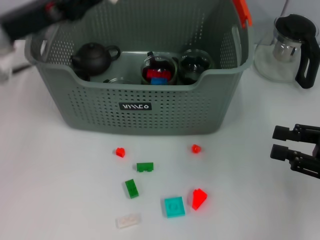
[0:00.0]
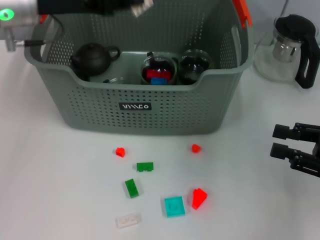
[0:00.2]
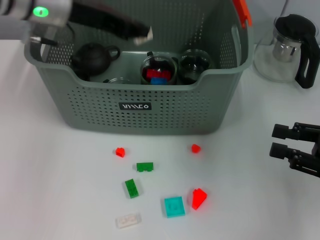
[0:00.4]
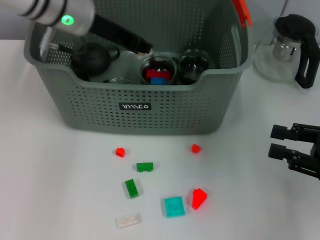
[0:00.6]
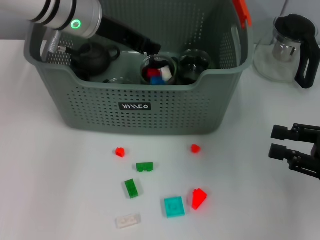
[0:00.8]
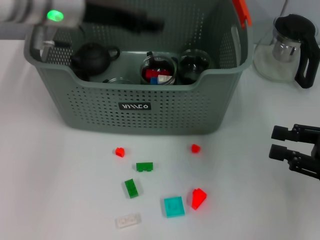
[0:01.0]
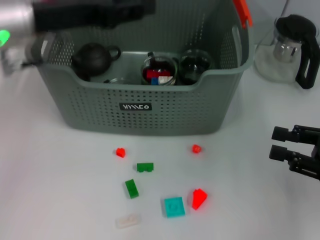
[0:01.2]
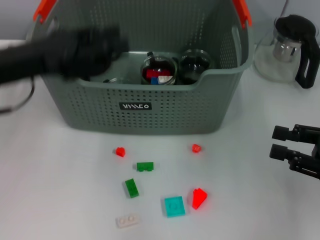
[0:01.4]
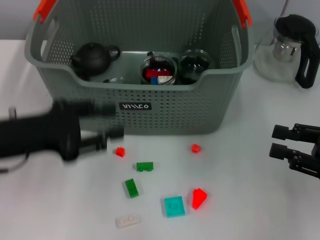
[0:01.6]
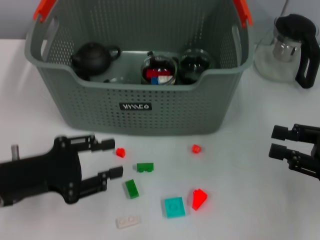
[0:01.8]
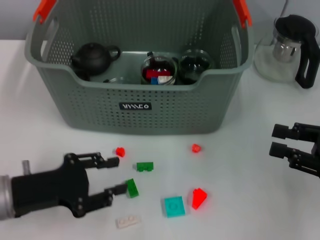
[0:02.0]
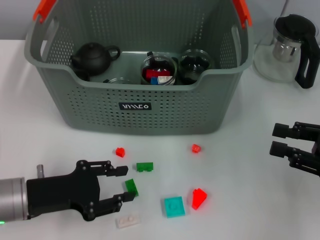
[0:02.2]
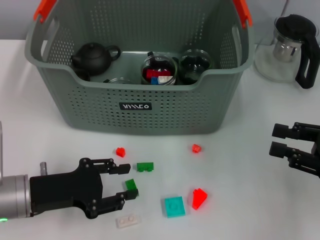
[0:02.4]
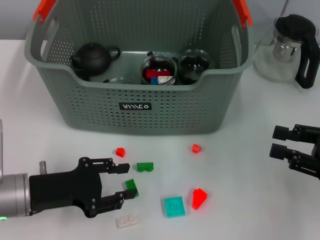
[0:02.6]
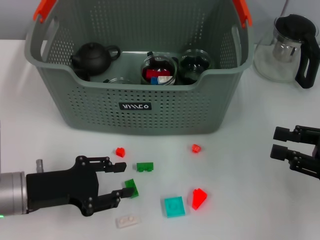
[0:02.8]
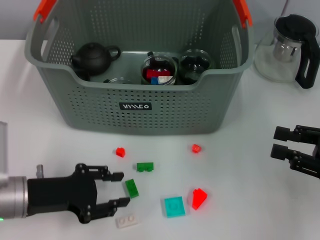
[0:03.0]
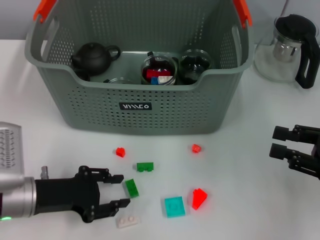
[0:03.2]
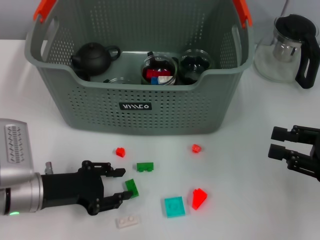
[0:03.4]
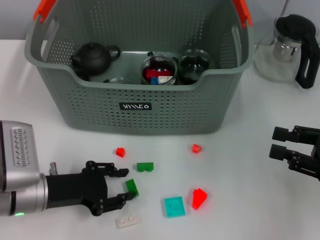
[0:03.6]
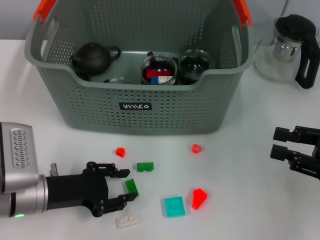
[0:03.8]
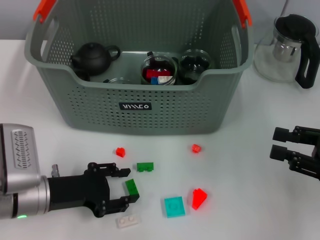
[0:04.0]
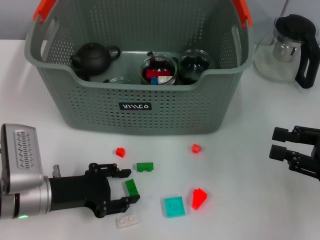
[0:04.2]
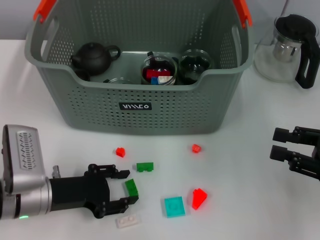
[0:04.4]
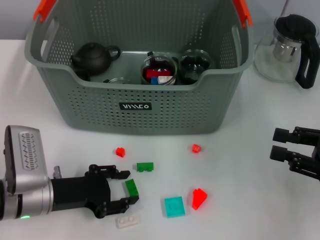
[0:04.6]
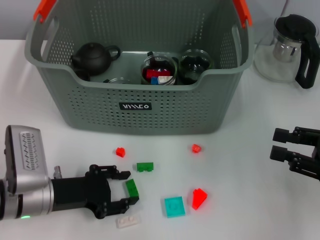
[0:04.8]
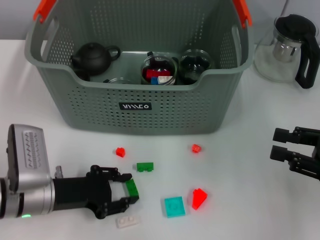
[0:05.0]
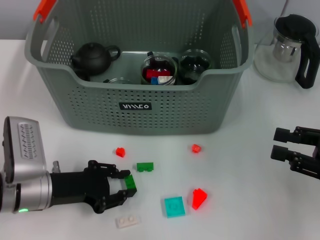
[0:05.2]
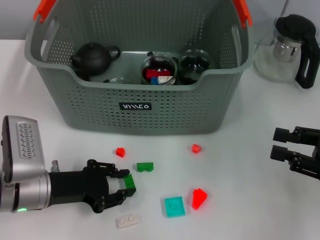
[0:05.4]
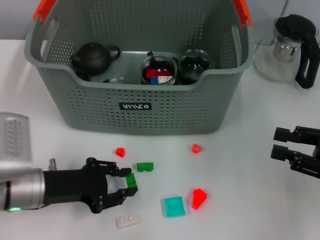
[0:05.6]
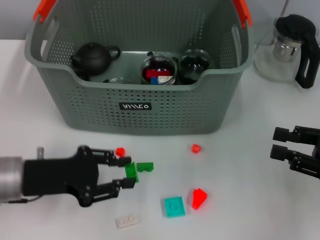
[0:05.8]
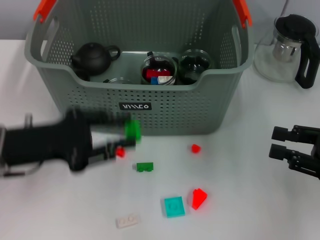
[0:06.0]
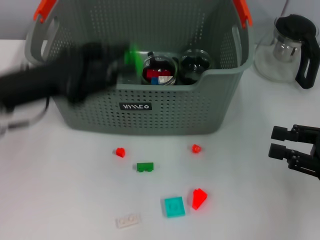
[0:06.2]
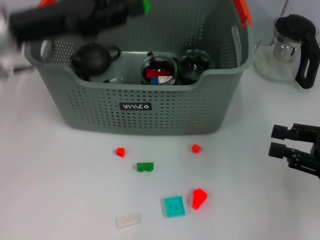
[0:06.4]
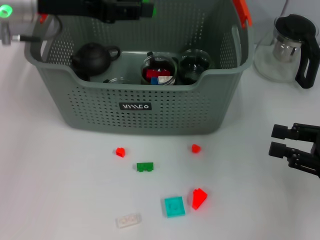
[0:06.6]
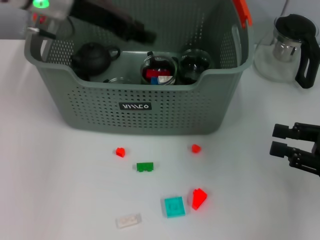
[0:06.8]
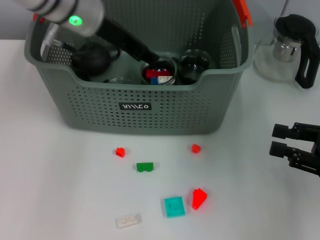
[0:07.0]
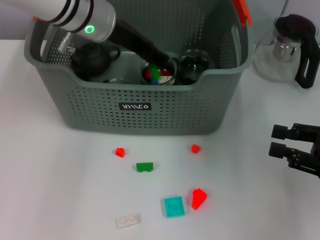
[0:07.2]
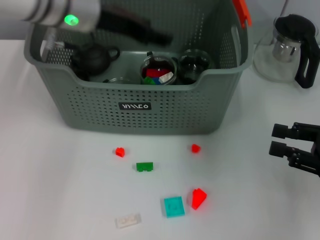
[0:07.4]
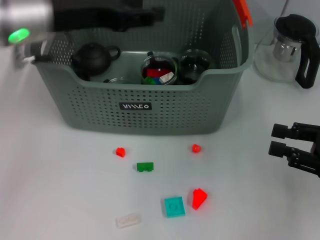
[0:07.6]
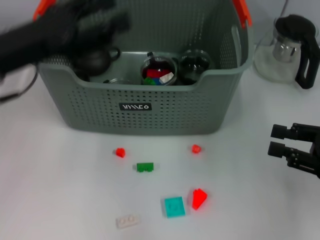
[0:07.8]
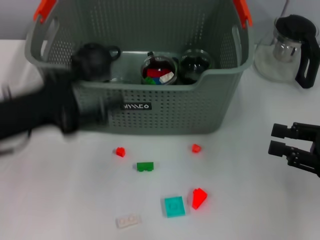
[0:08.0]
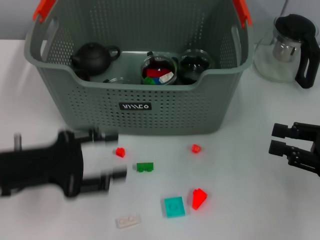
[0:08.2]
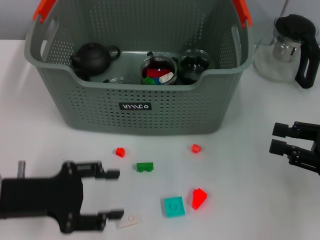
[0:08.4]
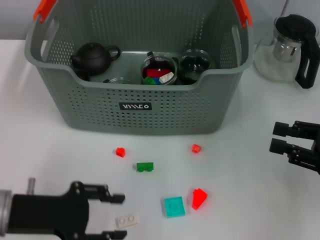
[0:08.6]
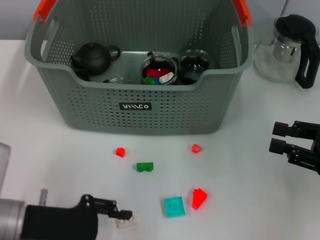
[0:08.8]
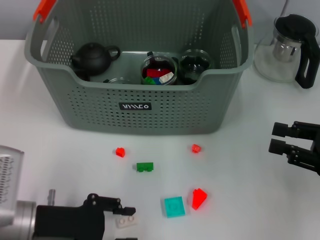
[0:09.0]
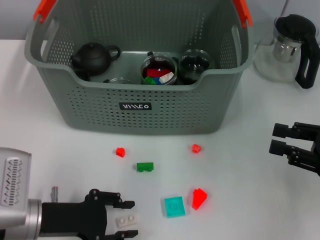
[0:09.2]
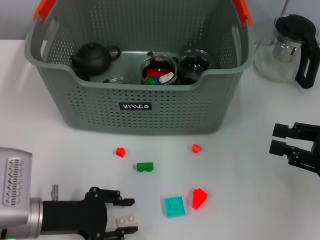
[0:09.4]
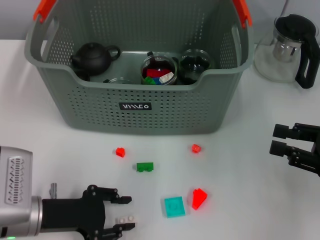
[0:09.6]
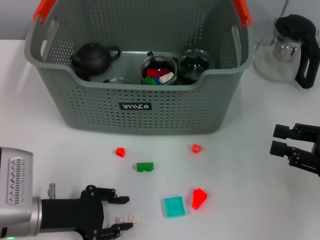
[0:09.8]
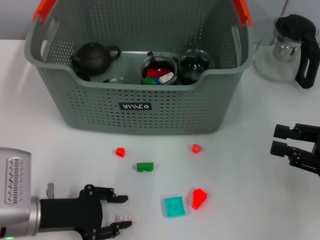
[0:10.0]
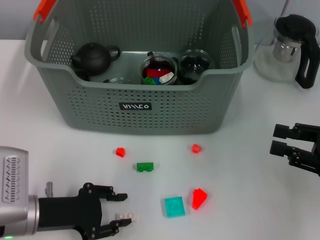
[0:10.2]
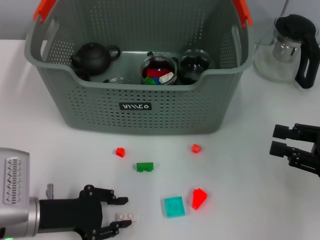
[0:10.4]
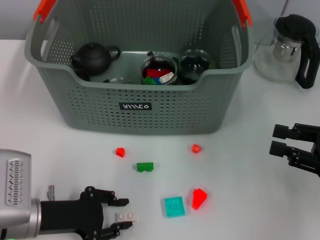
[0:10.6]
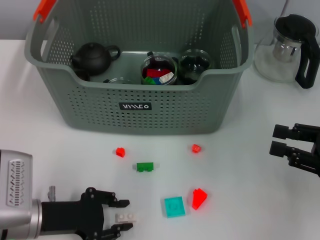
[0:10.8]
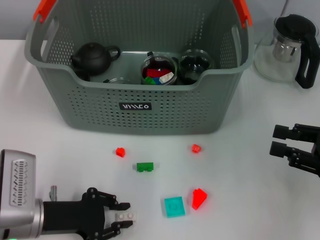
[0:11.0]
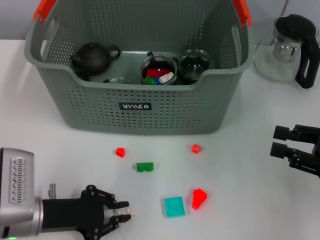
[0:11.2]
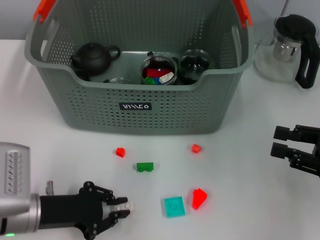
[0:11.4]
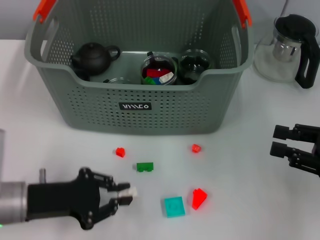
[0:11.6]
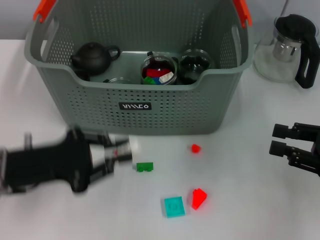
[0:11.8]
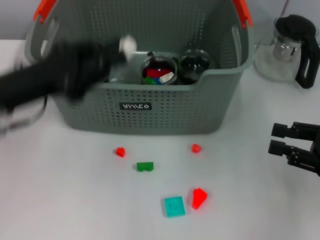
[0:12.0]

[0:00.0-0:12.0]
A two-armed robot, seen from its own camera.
Task of the whole recording: pick up the teacup on the table and place it into the storage bin, pick up the block on the table and place it into the storage bin.
Step, 0:01.0 to 0:05.0: Grasp the green block with left gripper.
Step, 0:05.4 to 0:07.2: Place the green block in the storage box with left gripper.
Step, 0:07.4 to 0:11.0: Grasp the white block with left gripper.
0:00.0 to 0:01.6: The left gripper shifts some 10 cm backward, and opens.
0:01.6 to 0:03.0: The left gripper shifts approximately 10 cm downward.
0:03.0 to 0:04.4: The grippers make only small movements.
0:04.4 to 0:06.0: The left gripper shifts roughly 10 cm upward.
0:06.0 to 0:07.6: The left gripper moves upward and forward, about 15 cm.
0:07.6 to 0:09.0: The left gripper is displaced downward and backward by some 25 cm.
0:09.0 to 0:10.4: The grippers stay close to where they were, moving slightly.
0:10.4 to 0:12.0: The left gripper travels upward and forward by some 15 cm.

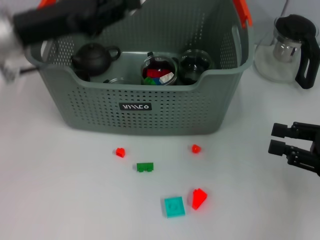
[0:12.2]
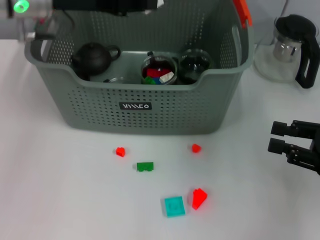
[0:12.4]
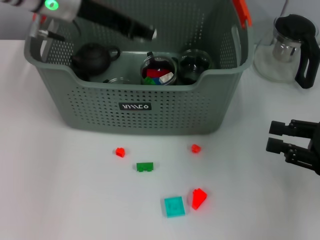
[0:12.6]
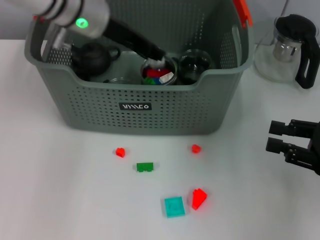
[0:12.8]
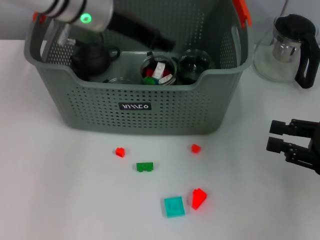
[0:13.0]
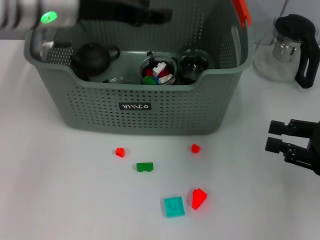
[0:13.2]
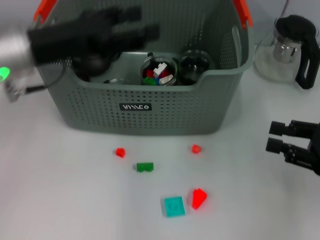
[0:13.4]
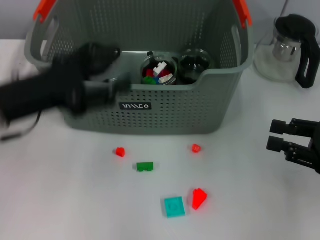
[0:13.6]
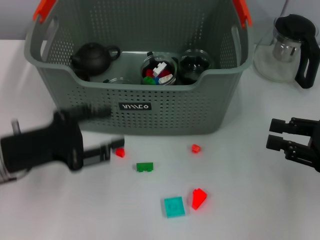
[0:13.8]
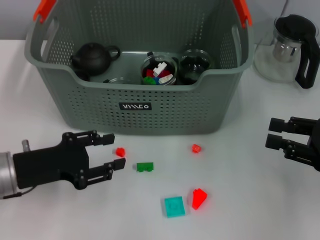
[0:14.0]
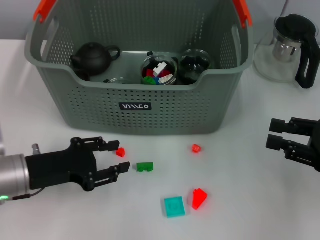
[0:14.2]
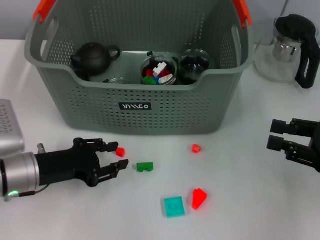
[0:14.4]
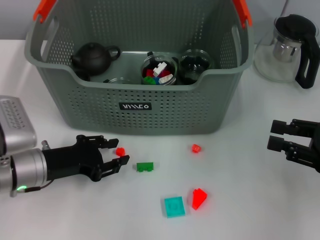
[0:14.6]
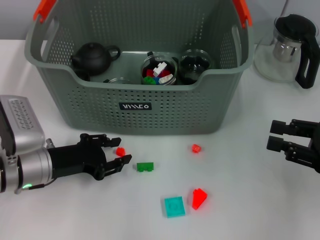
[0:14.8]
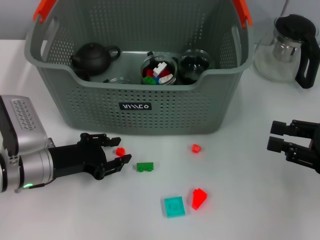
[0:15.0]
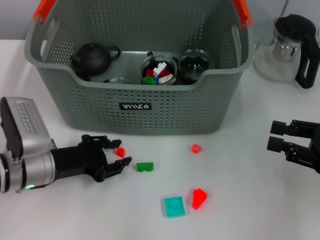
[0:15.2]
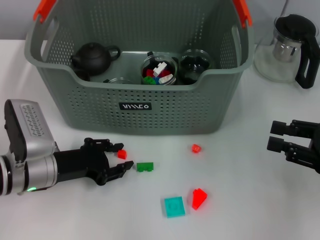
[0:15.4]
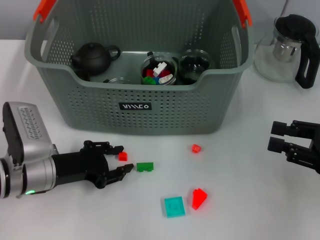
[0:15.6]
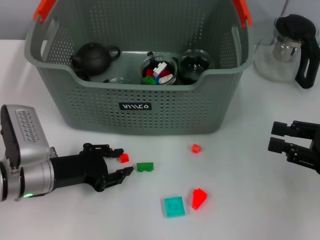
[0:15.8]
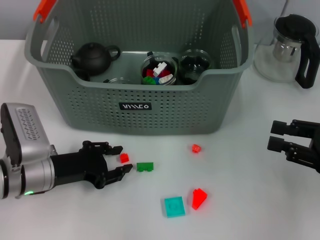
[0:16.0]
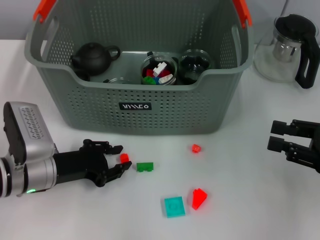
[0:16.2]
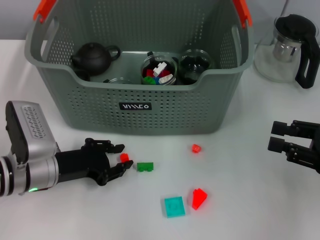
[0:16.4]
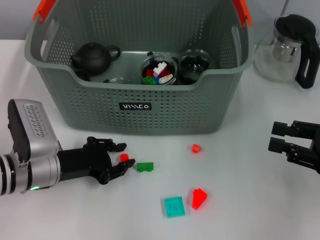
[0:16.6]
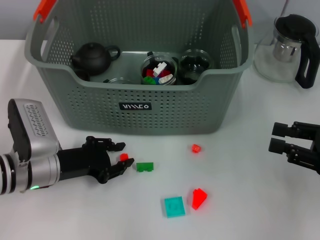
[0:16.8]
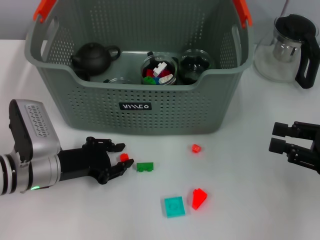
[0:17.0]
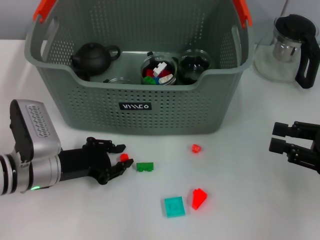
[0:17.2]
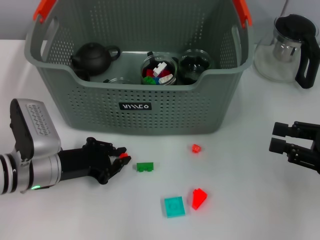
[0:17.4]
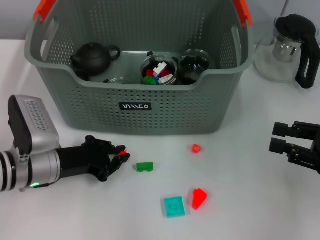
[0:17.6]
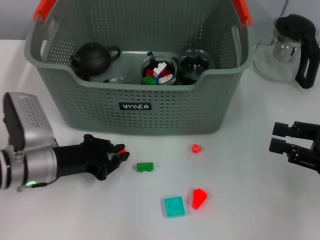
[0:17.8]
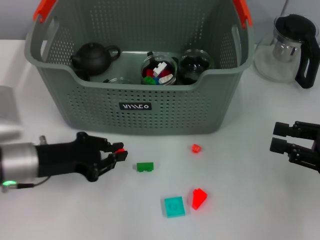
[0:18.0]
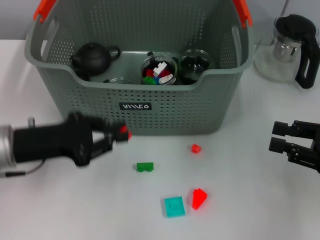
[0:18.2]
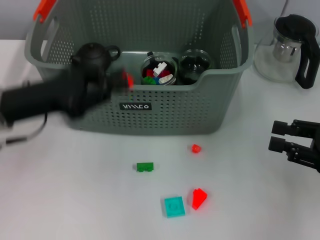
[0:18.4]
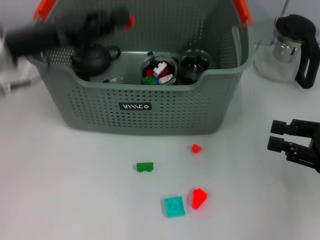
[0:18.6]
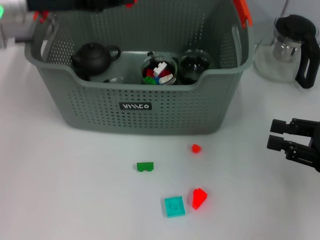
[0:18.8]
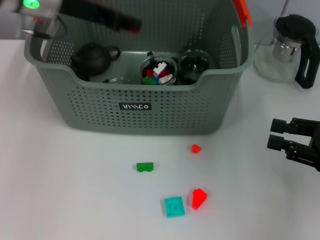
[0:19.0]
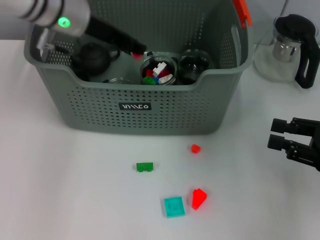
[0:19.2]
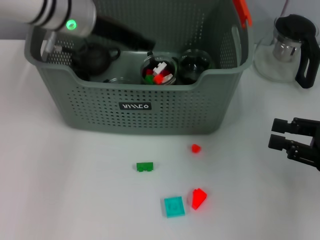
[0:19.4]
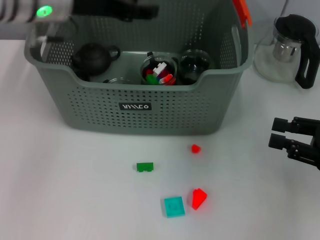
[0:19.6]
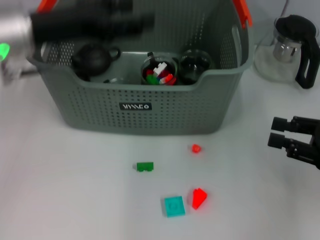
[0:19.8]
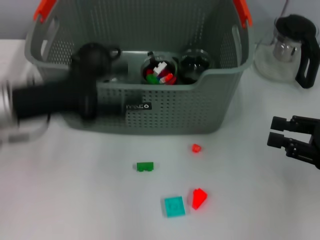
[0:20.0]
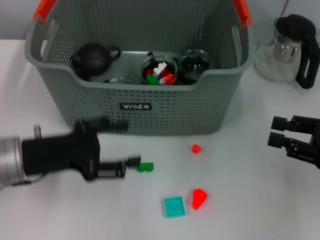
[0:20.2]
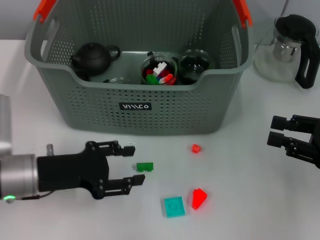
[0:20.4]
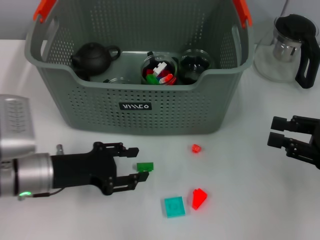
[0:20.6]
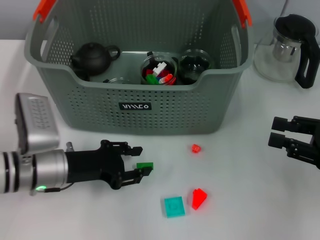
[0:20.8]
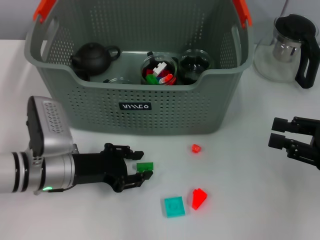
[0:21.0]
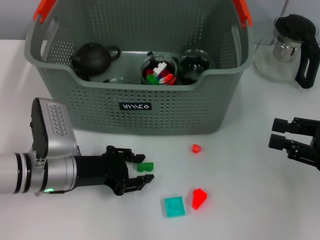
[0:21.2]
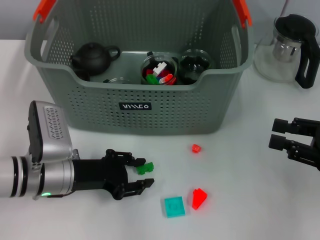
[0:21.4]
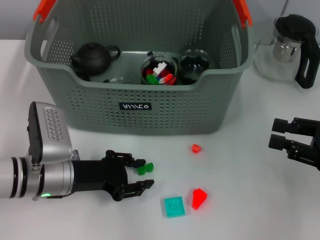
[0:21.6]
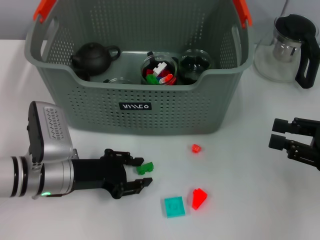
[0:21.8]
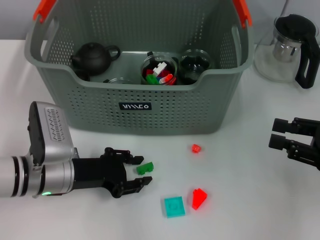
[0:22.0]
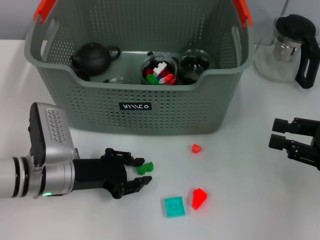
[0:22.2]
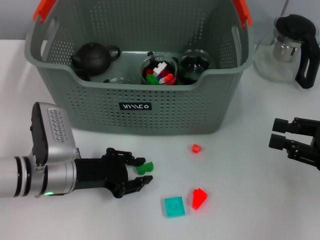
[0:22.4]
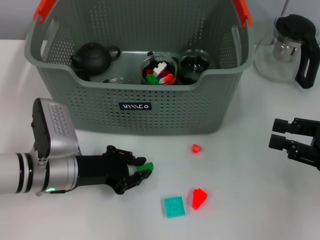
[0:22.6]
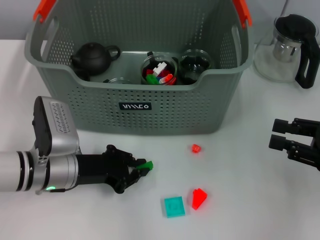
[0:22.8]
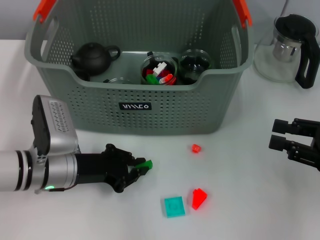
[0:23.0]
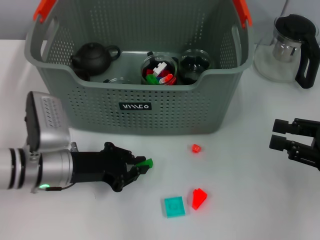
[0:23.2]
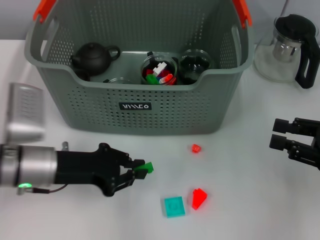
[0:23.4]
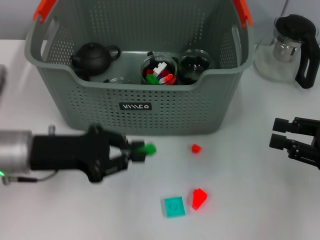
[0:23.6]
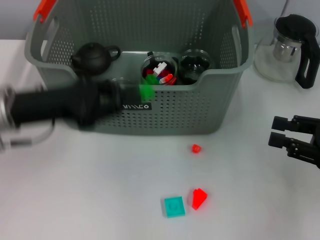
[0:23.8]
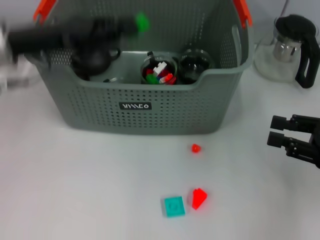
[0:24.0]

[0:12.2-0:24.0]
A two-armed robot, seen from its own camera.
Task of the whole recording: pick up the teacup on the table and place it into the storage bin, pick up the block on the table and place it into the storage bin.
Step, 0:13.2 to 0:17.6: Grasp the red block with left gripper.
Step, 0:17.8 to 0:19.4: Place the red block in the storage box with left gripper.
Step, 0:19.6 to 0:22.8: Grasp the green block with left gripper.
0:12.2 to 0:13.6: The left gripper goes roughly 10 cm backward and downward, and opens.
0:13.6 to 0:15.2: The left gripper travels downward by roughly 10 cm.
0:15.2 to 0:16.6: Both grippers stay put.
0:16.6 to 0:18.2: The left gripper travels upward by approximately 10 cm.
0:18.2 to 0:19.6: The left gripper travels upward, forward and to the right by some 20 cm.
0:19.6 to 0:21.0: The left gripper heads downward and backward, covering about 25 cm.
0:21.0 to 0:22.6: The two grippers keep their place.
0:22.6 to 0:24.0: The left gripper heads upward, covering approximately 15 cm.
